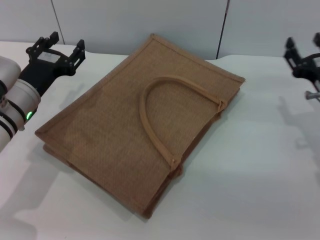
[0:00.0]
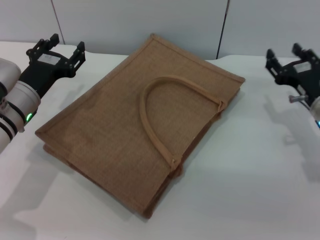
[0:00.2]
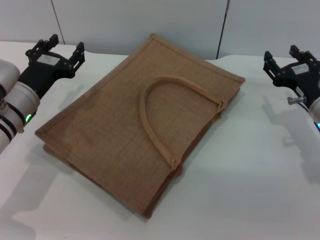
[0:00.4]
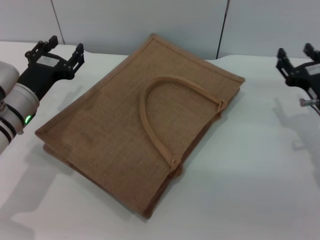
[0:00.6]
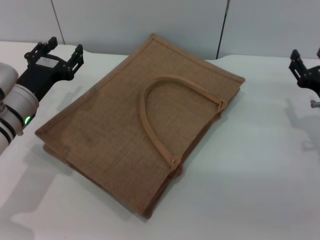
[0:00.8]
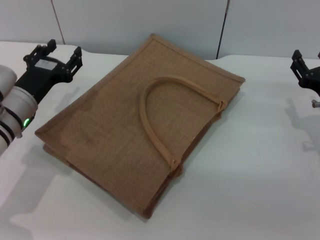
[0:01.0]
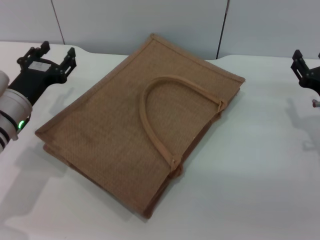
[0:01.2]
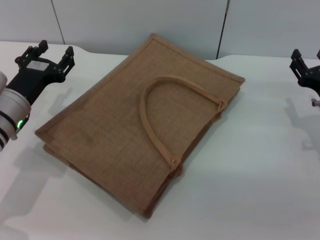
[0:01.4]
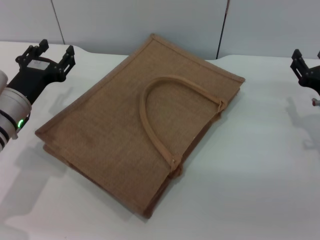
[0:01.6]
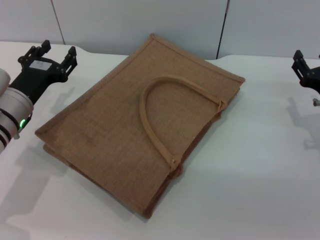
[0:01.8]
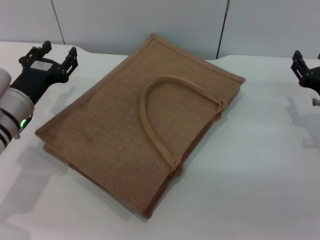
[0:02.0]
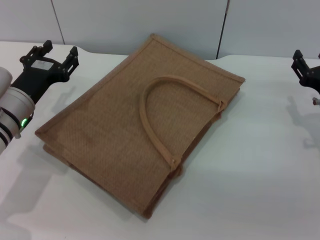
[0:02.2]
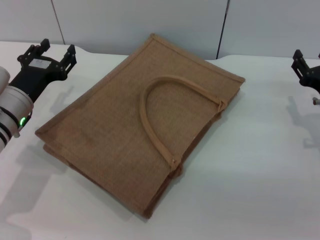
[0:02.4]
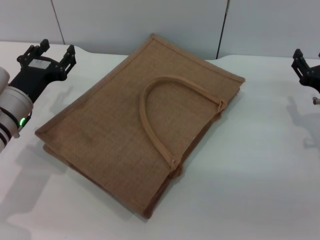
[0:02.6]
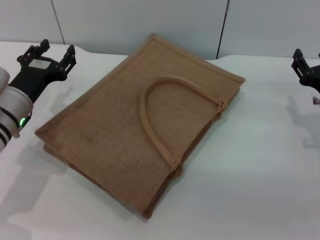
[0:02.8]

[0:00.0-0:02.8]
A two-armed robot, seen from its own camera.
Task of the whole recording: pick up the bread from the table and place it in the brown handbag.
0:00.0 to 0:01.4: The grippers move only a little.
0:01.4 to 0:02.8: The two grippers keep their place.
